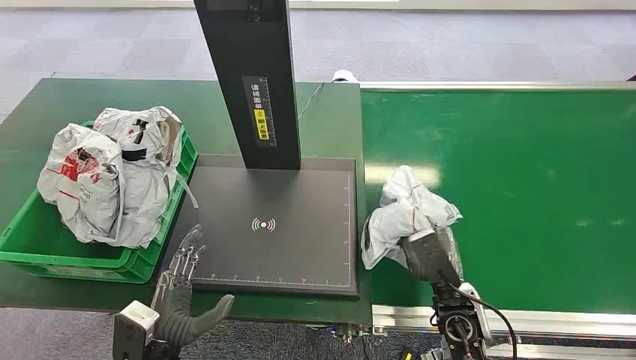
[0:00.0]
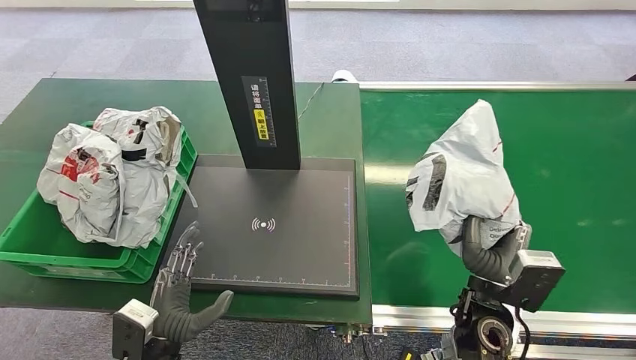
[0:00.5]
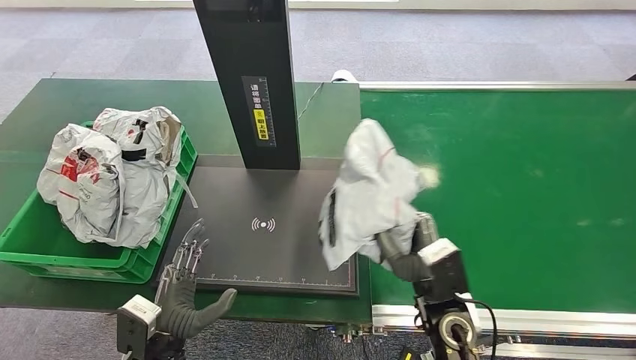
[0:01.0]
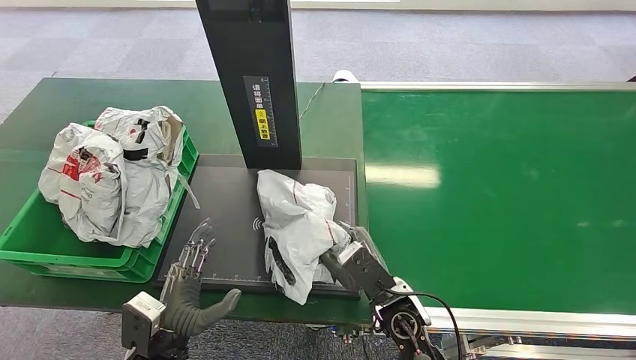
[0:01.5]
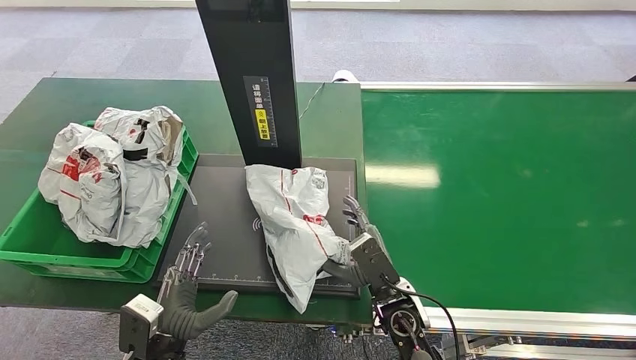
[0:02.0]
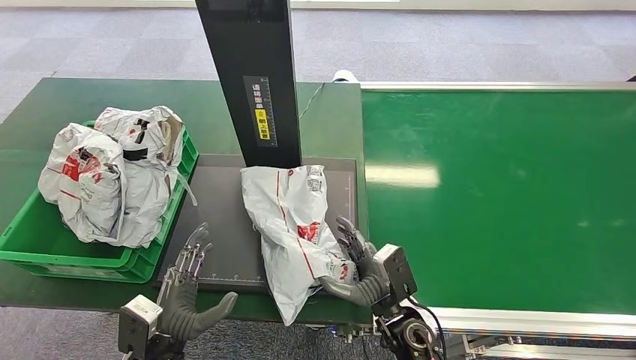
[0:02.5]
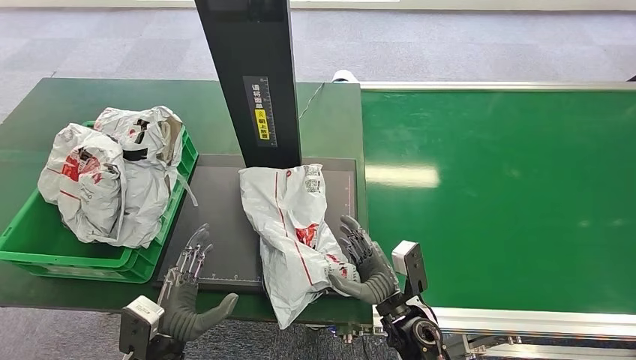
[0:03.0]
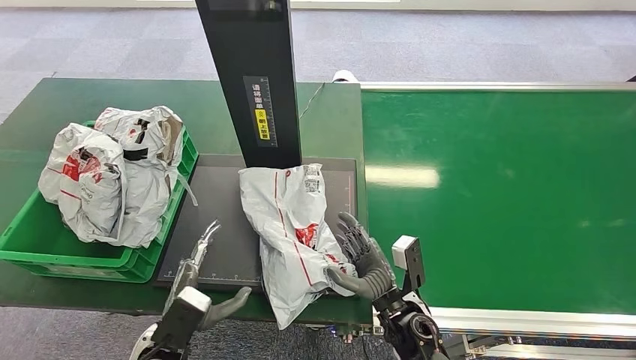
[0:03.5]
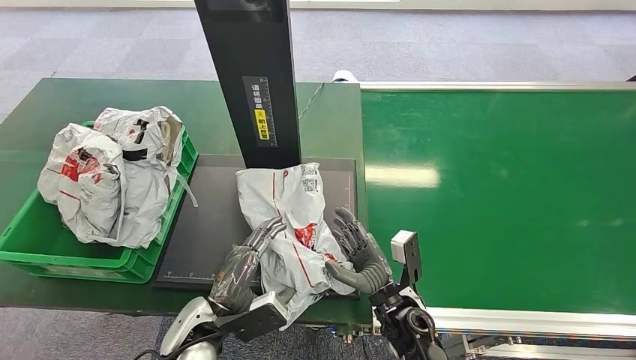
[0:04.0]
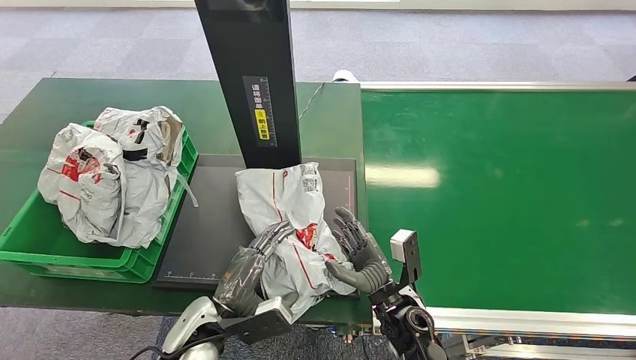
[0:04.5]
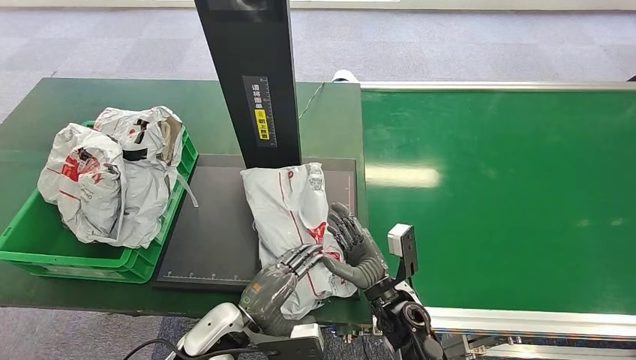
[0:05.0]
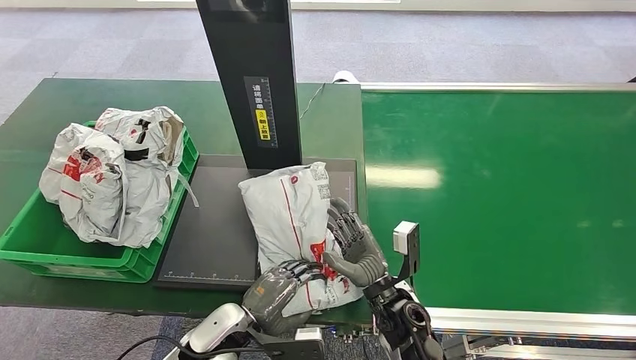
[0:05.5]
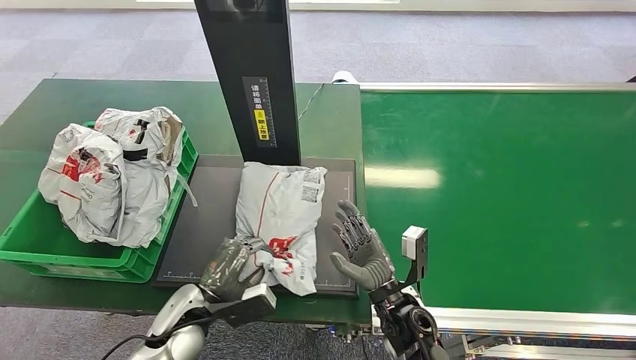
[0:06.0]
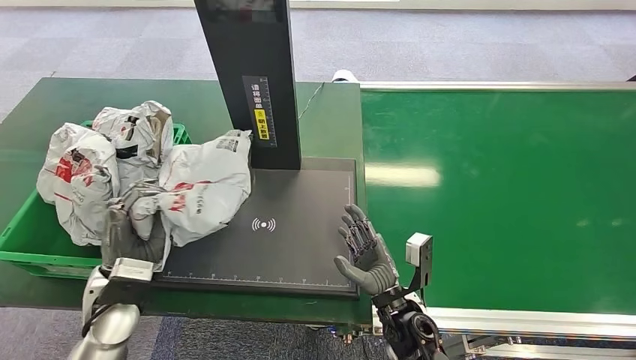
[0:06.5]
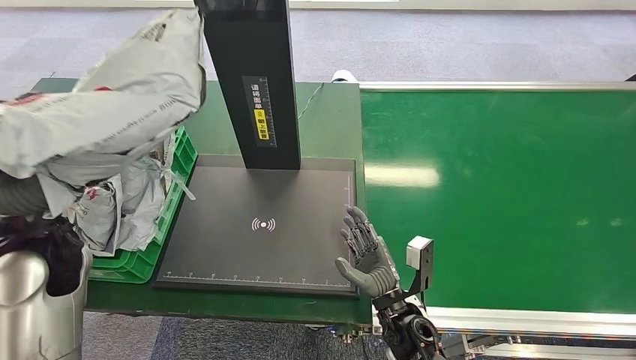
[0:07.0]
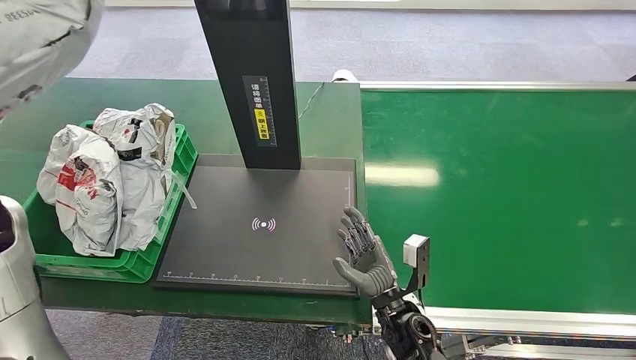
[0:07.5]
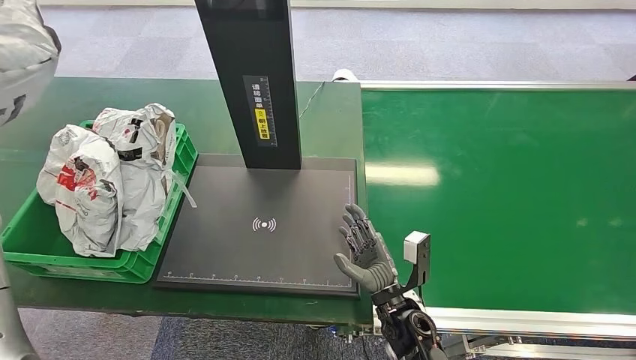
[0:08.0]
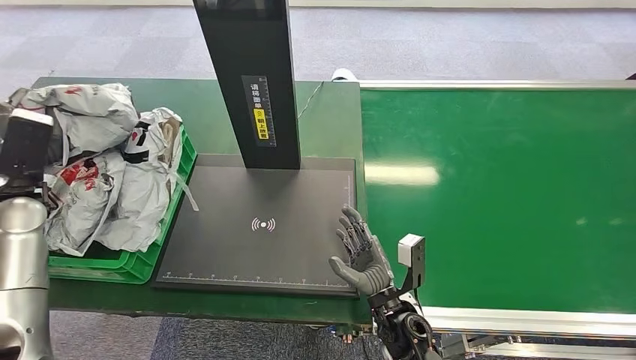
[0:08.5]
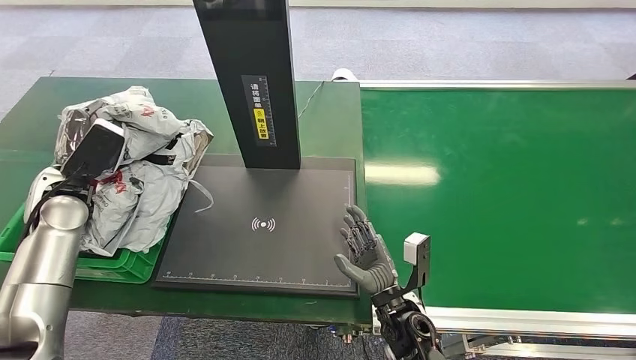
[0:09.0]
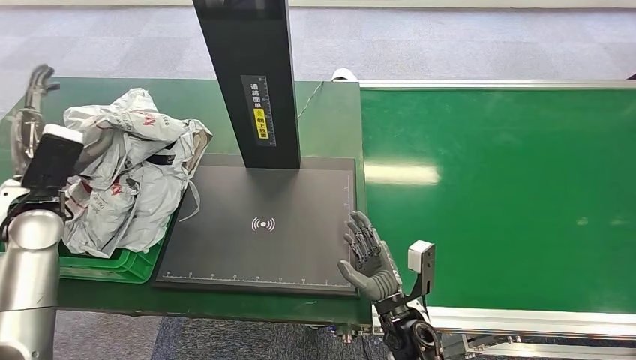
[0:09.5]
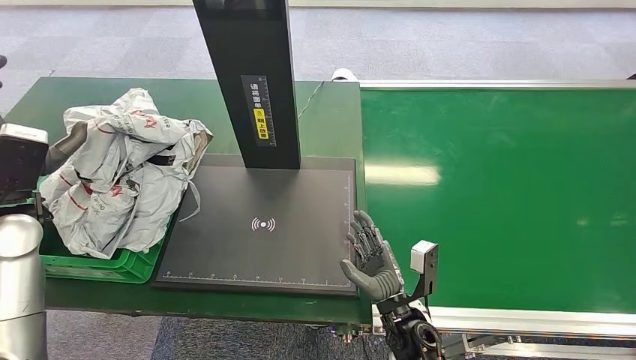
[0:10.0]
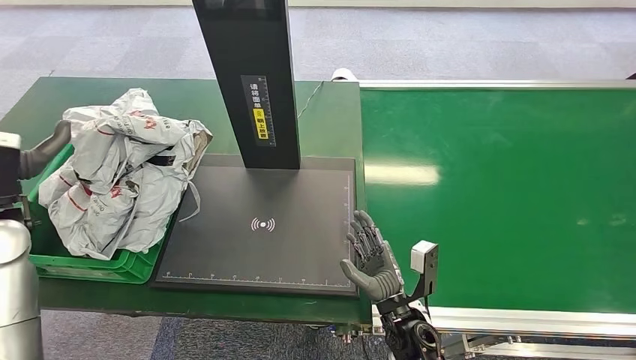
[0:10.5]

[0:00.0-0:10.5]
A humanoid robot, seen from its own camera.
0:02.0 to 0:04.0: The left hand travels to the right by roughly 5 cm.
0:04.0 to 0:06.5: The left hand heads to the left and upward, covering about 15 cm.
0:08.5 to 0:10.5: The left hand changes place by roughly 5 cm.
